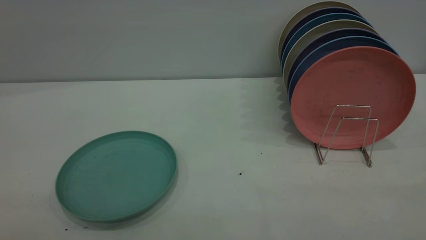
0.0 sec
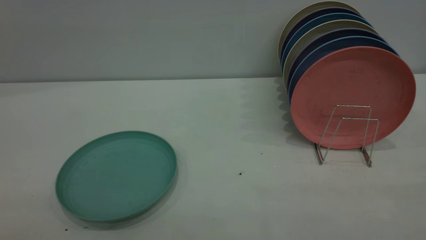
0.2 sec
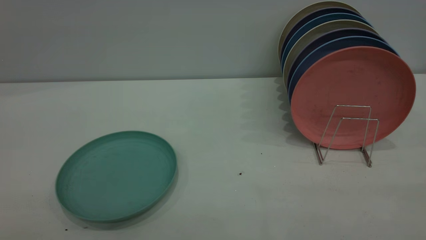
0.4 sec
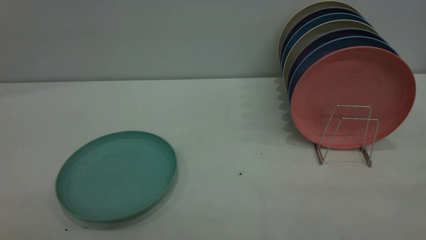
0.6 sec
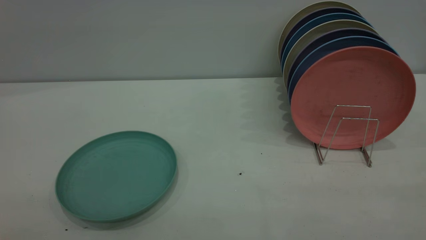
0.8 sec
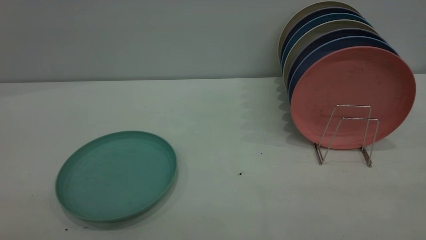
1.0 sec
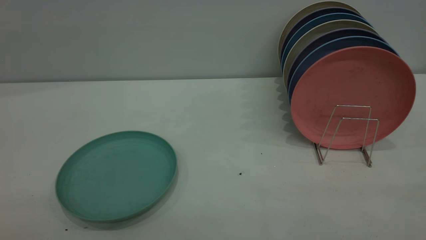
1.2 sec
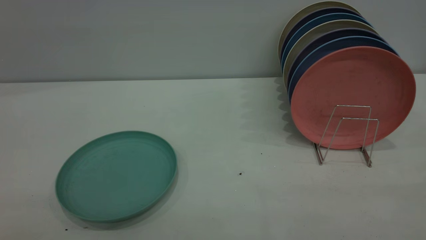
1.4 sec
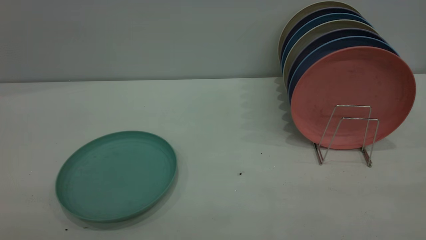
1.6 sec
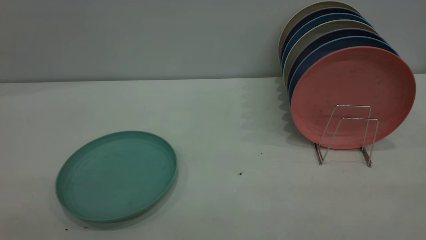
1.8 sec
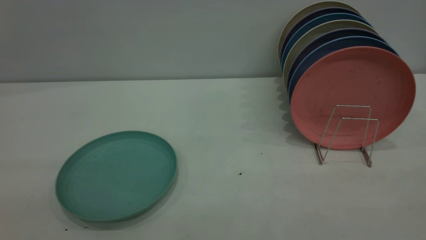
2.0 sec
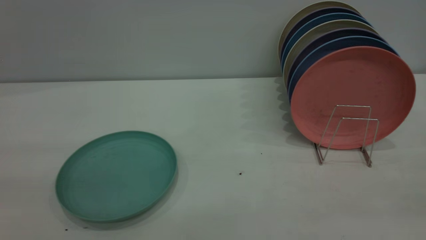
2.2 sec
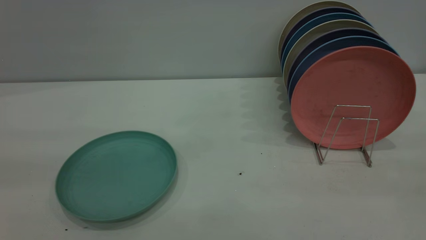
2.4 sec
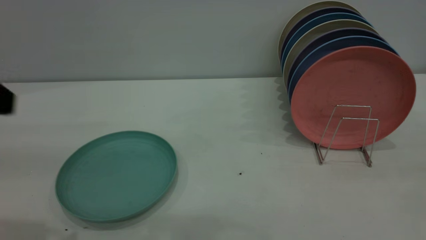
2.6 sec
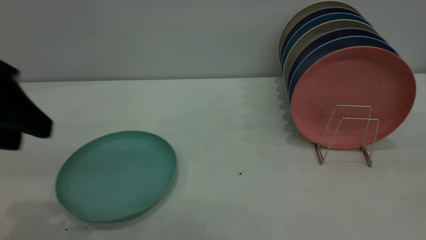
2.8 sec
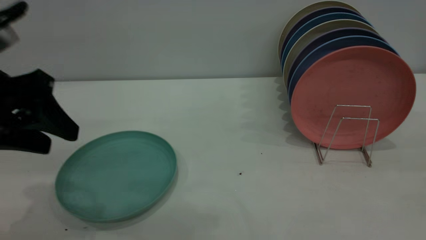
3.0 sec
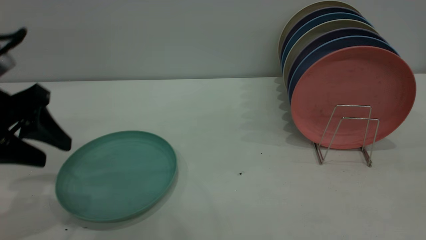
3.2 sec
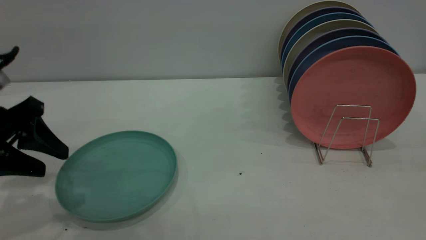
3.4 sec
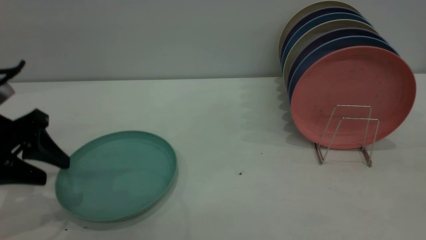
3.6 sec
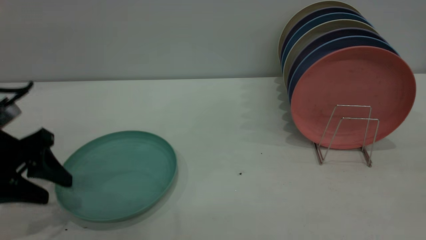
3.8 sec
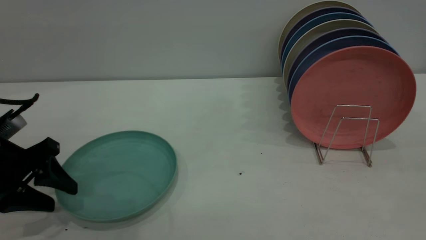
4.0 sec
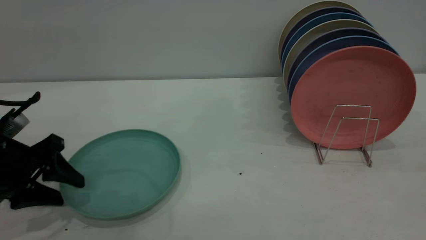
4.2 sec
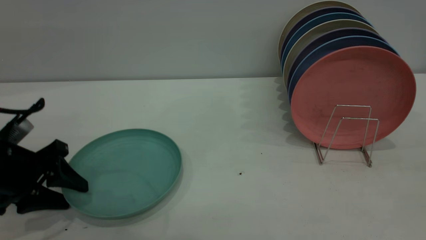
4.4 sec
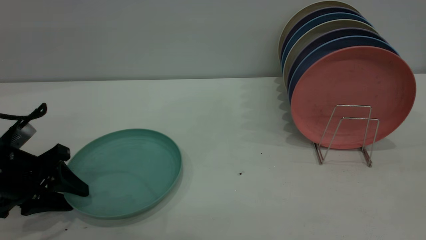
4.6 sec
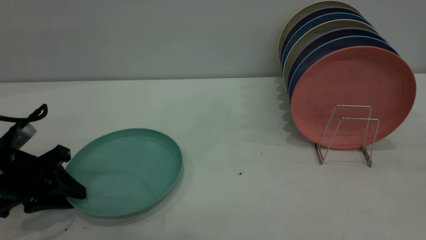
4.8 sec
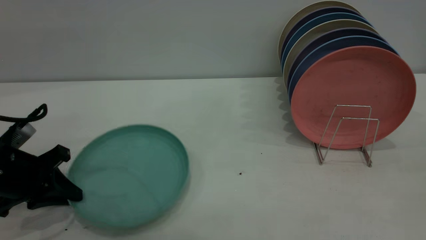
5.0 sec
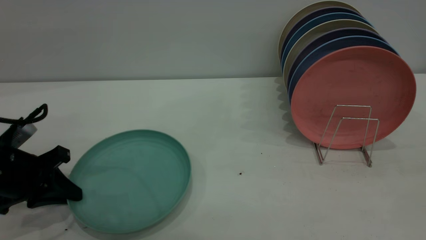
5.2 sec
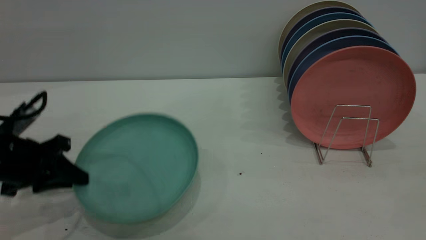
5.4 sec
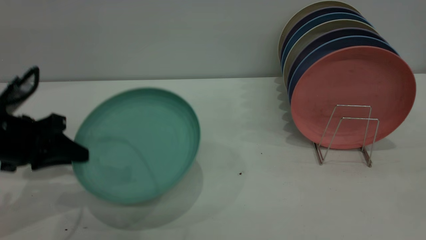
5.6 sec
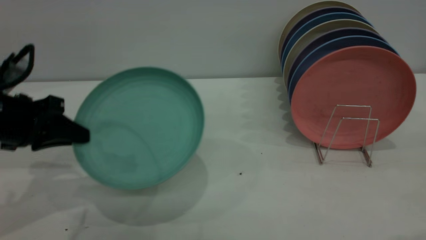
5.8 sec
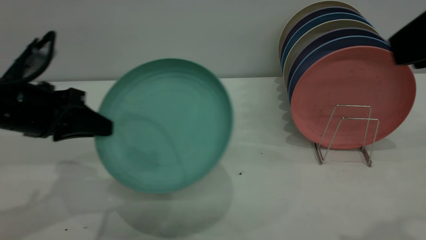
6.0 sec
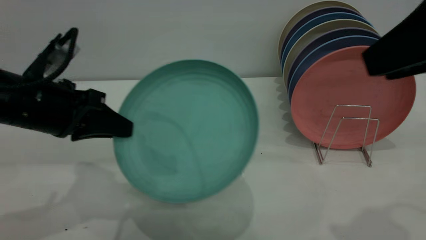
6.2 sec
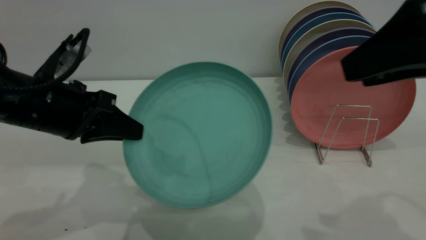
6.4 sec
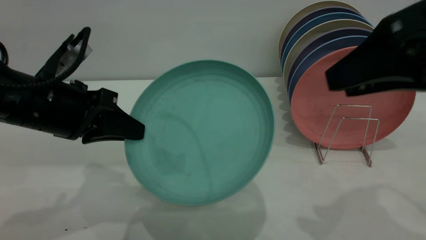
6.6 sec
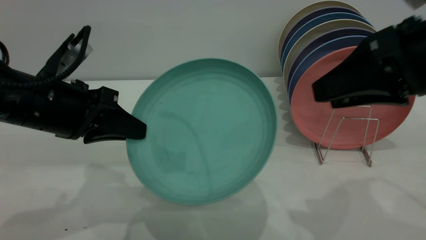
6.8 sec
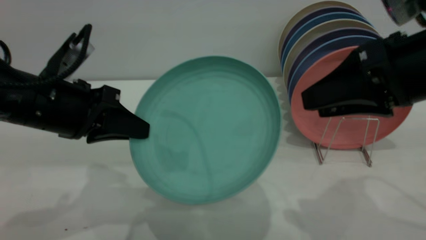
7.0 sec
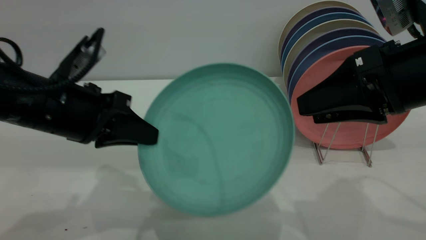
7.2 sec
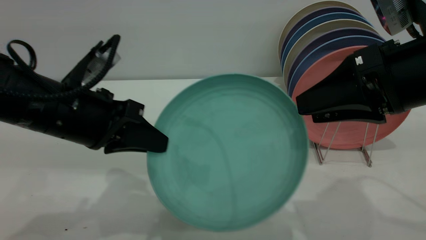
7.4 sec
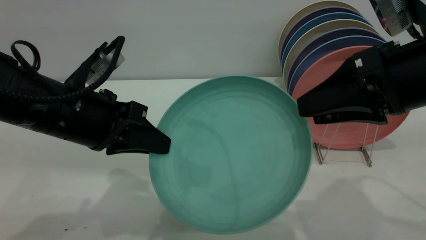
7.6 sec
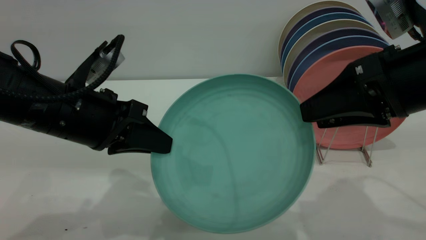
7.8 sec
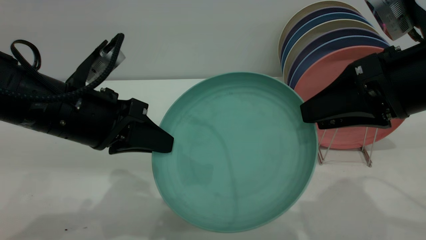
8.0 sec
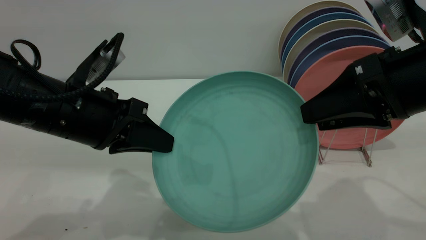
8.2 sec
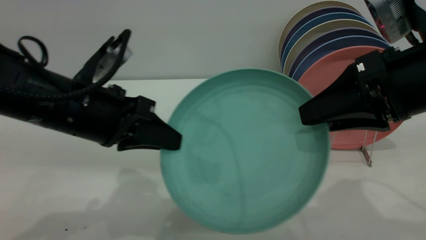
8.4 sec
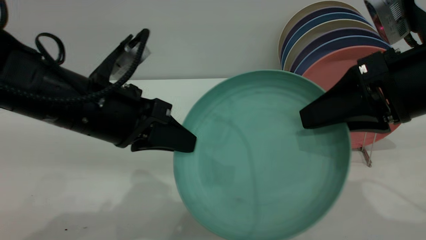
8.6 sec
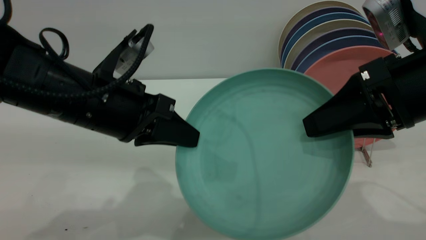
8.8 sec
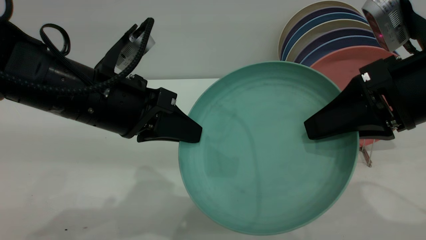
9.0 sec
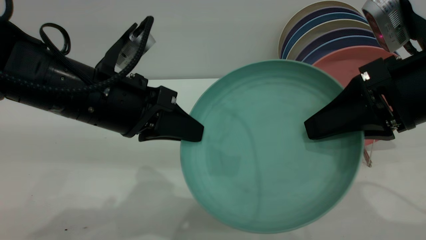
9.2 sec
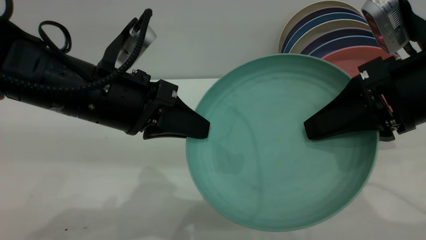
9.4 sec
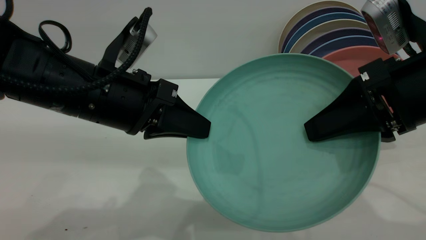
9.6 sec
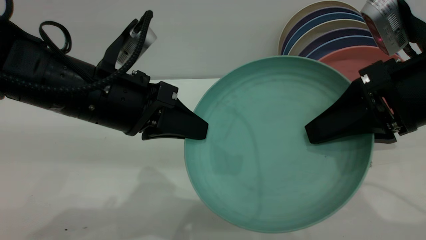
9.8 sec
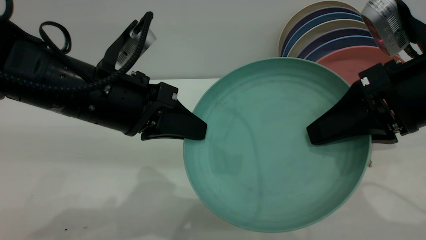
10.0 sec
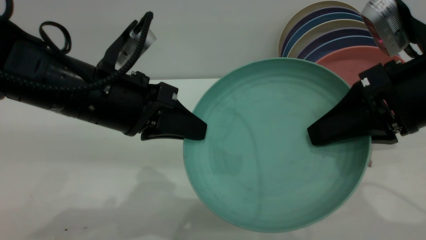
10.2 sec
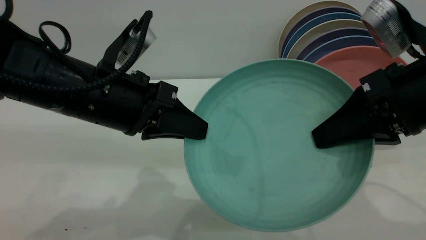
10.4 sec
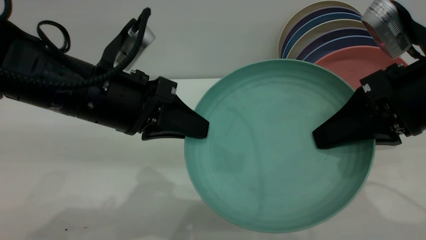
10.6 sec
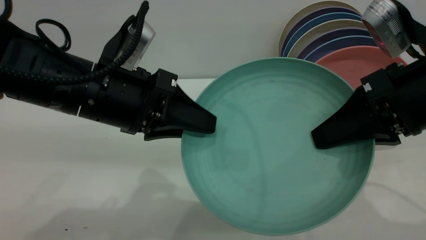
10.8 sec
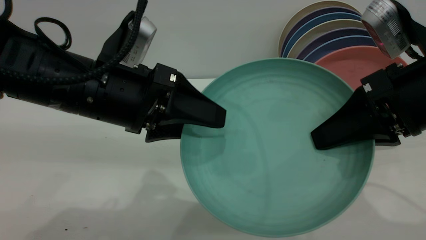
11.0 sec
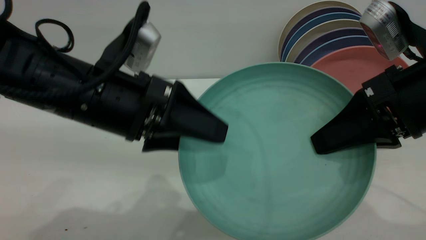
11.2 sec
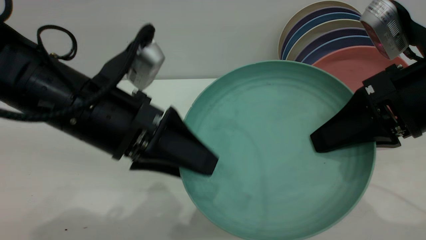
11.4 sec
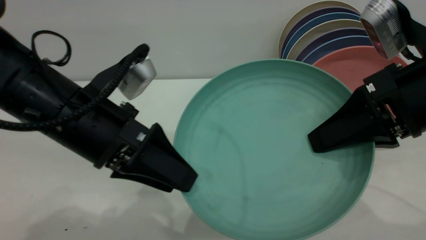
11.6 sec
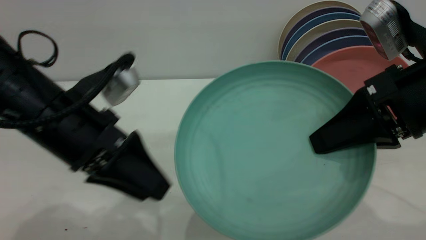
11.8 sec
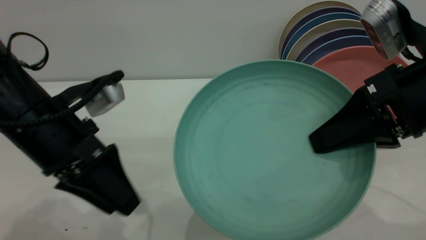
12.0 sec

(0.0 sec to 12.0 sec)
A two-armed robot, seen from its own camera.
Task of the whole recording: the left gripper grasp the green plate, the left gripper pass the green plate to the right gripper, and the right gripper place the green plate on the plate rack.
Step, 0.0 sec - 5.6 sec: Pick up the plate with the left gripper.
Step, 5.8 sec - 11.8 sec: Pass the plate from the left gripper to the right gripper.
1.6 sec - 3.0 sec: The left gripper heads forward and downward, covering about 30 cm.
3.0 sec - 4.4 sec: The left gripper shifts approximately 15 cm downward.
4.4 sec - 6.0 sec: The left gripper shifts roughly 10 cm upward and to the right, and closes. The right gripper heads forward, covering about 5 cm.
6.0 sec - 7.6 sec: The left gripper heads to the right, covering approximately 5 cm; the right gripper travels downward and forward by some 15 cm.
7.6 sec - 9.0 sec: The right gripper closes up.
9.0 sec - 10.4 sec: The grippers stay close to where they were, moving slightly.
10.4 sec - 12.0 sec: The left gripper shifts about 5 cm to the left, and opens its fingers.

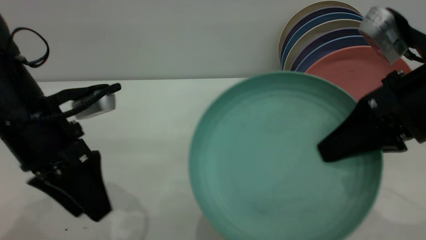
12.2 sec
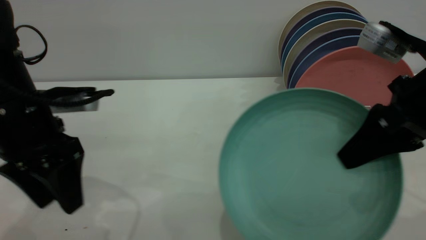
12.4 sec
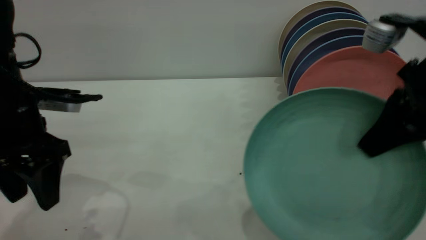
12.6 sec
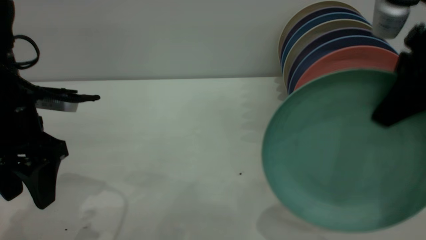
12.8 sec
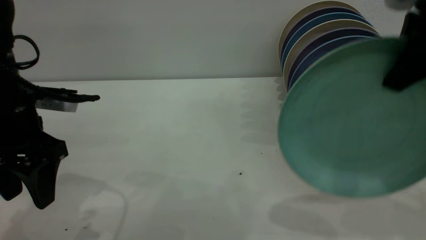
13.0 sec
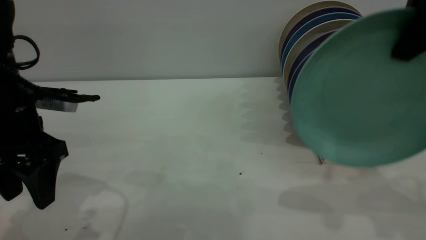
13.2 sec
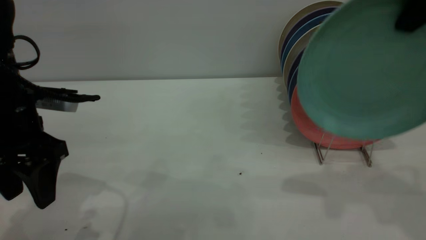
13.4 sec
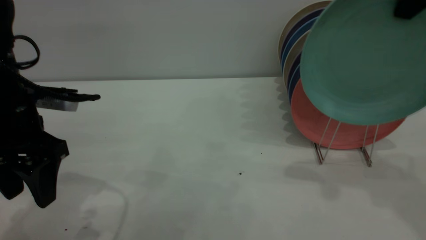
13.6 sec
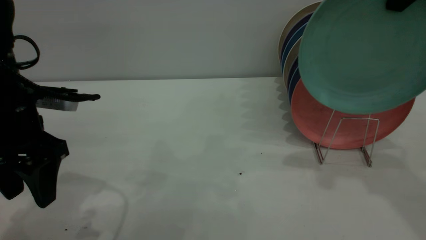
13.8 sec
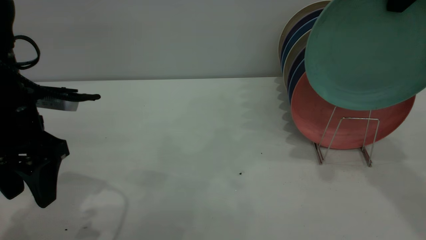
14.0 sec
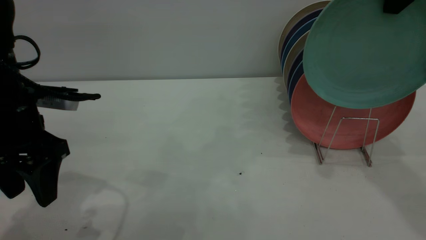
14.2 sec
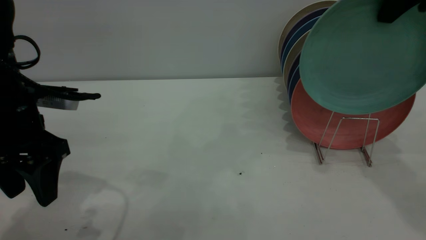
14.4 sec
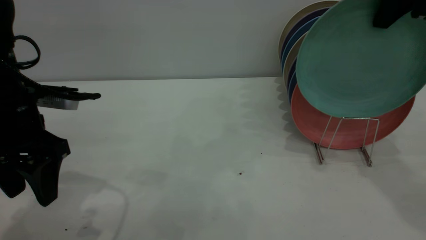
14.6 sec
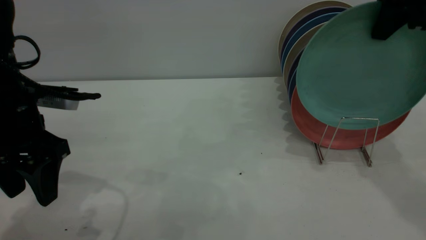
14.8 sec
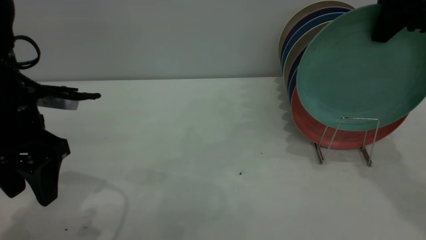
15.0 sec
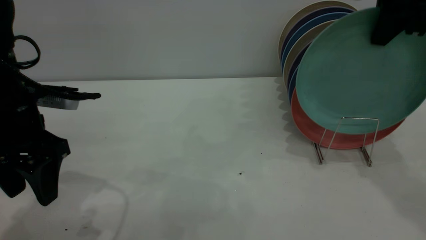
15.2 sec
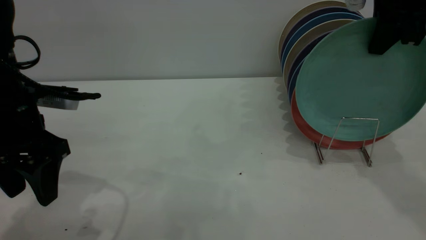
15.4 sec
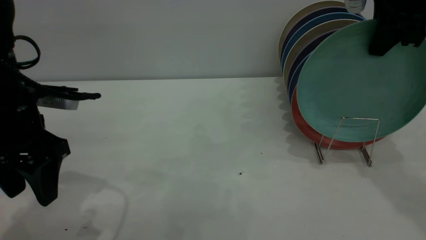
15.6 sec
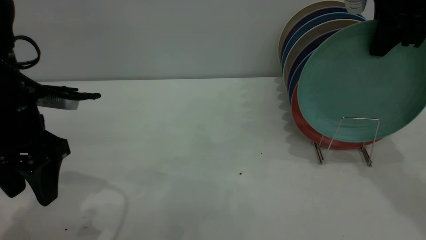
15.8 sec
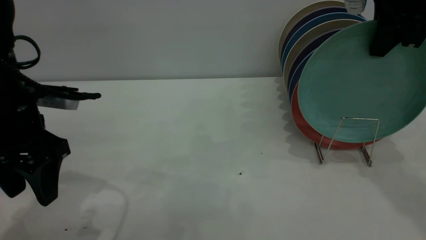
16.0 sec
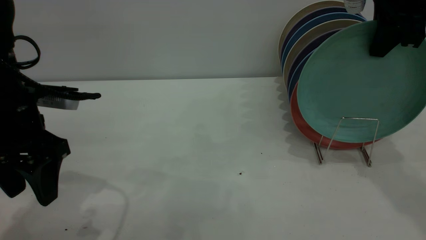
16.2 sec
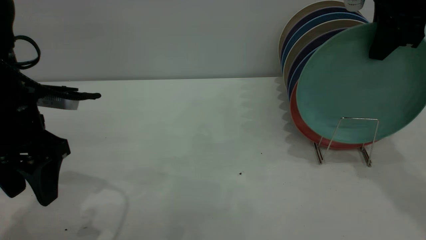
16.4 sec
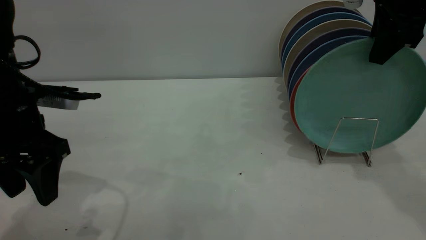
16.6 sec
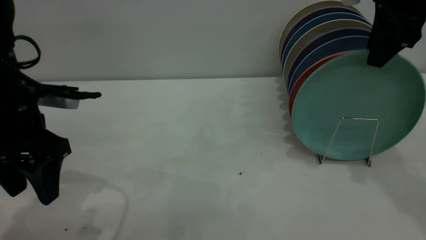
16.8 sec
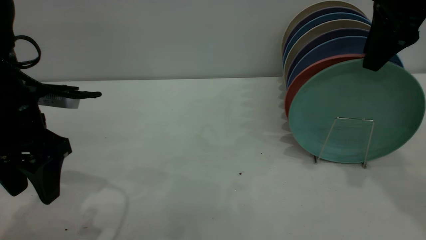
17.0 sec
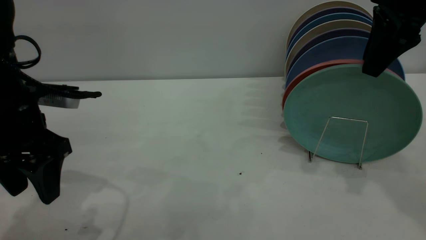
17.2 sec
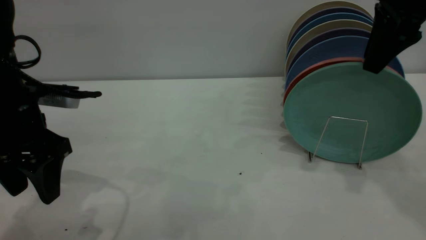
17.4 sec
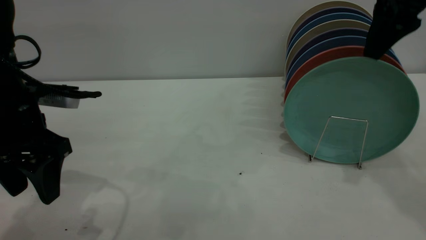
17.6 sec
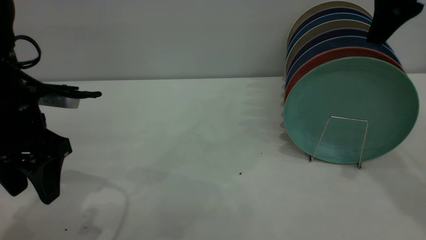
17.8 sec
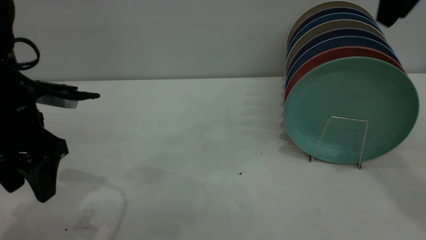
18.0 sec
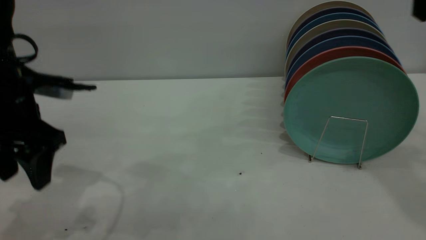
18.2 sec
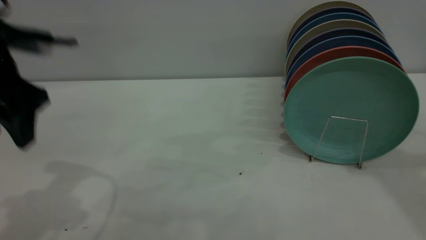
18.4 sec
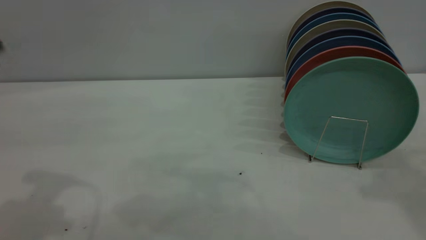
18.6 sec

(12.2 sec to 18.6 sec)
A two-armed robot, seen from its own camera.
Task of the whole recording: the left gripper grasp the green plate, the left gripper pass the green plate to the right gripper, and the right gripper place the green plate on the plate rack.
Step, 12.2 sec - 18.0 sec: Place the plate on the shelf.
12.2 sec - 13.8 sec: The right gripper is displaced upward and forward by about 20 cm.
13.8 sec - 15.4 sec: The right gripper is displaced downward by some 5 cm.
15.4 sec - 17.0 sec: The right gripper opens its fingers.
17.0 sec - 18.6 sec: The left gripper heads upward, covering about 15 cm, while the right gripper shifts roughly 20 cm upward and backward.
